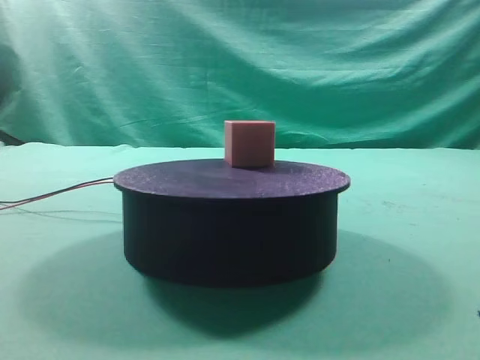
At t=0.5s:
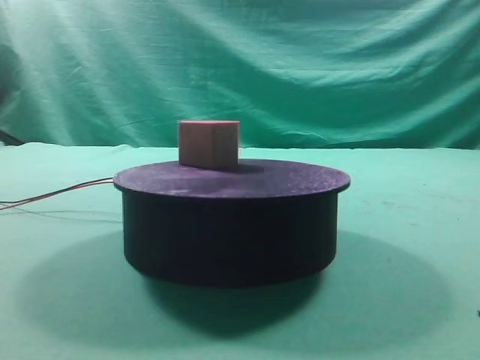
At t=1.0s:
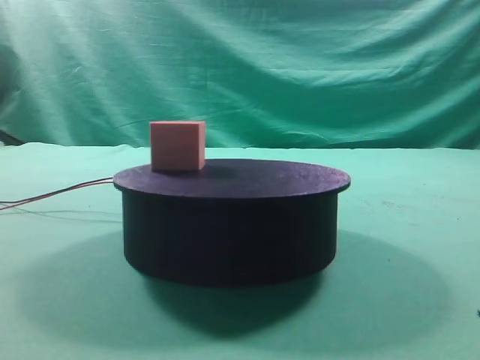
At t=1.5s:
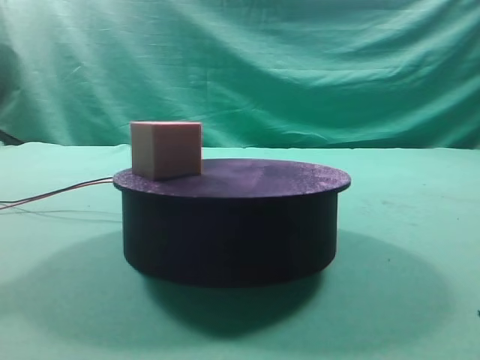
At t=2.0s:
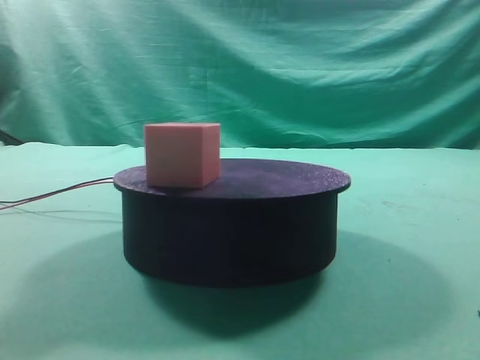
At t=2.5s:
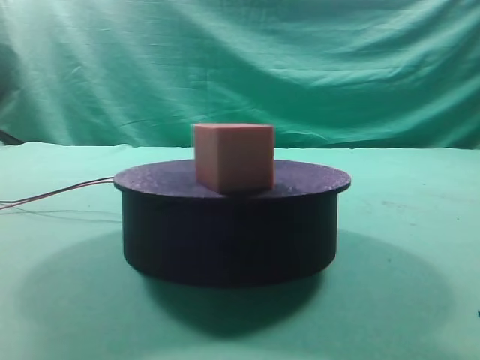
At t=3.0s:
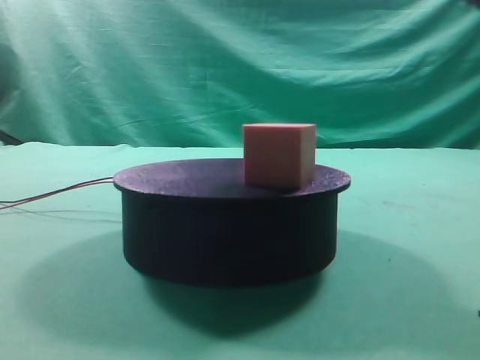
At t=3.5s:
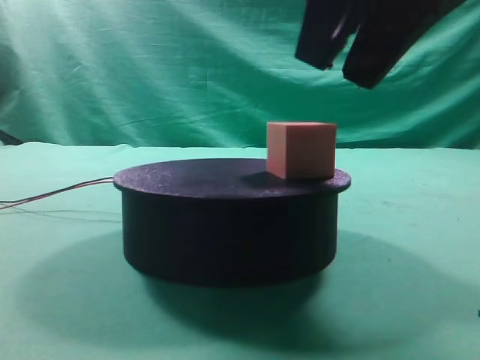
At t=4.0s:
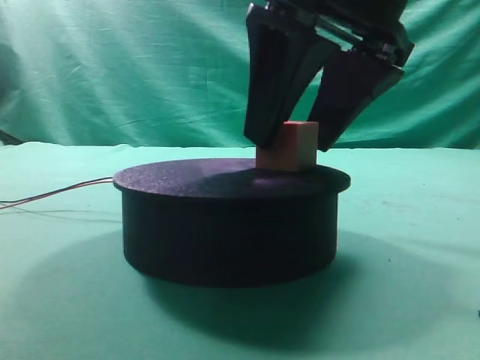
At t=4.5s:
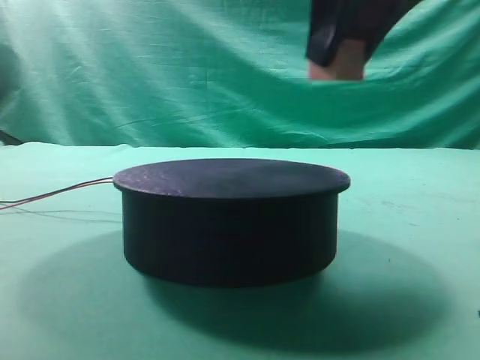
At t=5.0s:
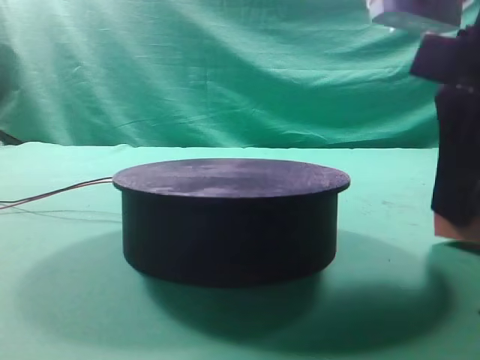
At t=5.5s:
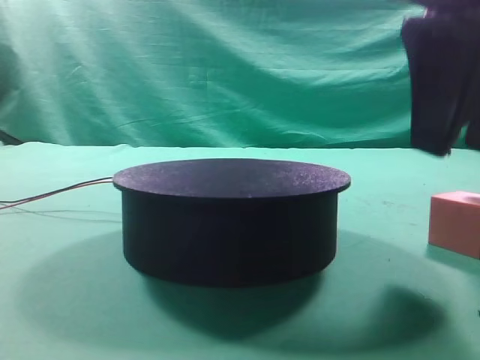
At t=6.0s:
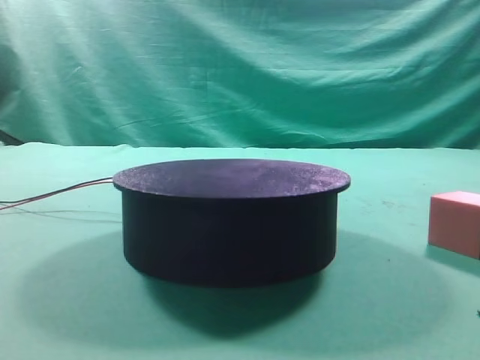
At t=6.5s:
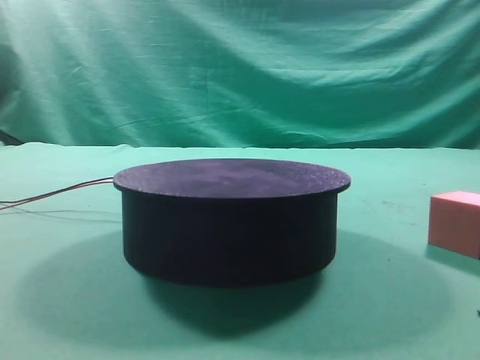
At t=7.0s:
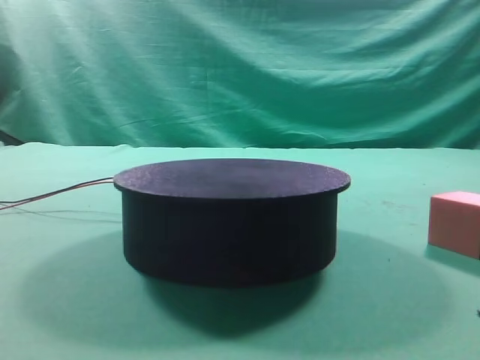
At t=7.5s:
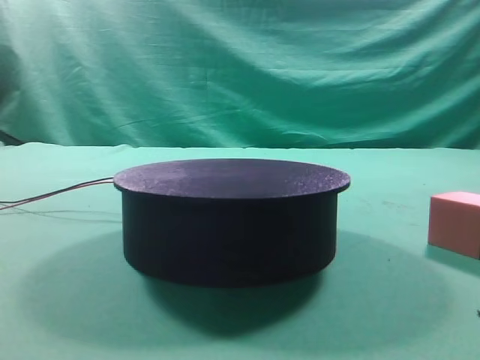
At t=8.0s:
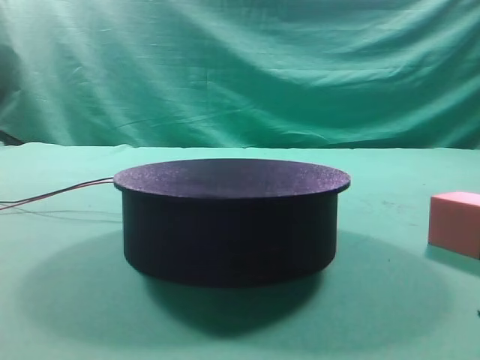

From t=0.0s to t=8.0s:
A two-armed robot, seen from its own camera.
Task of the whole recording: grasp the rotating cube-shaped block on the turntable and place it on the table.
Step, from t=0.0s to t=4.0s: Grasp the rotating cube-shaped block on the turntable.
Step, from t=4.5s to t=5.5s: Place the cube on the desk.

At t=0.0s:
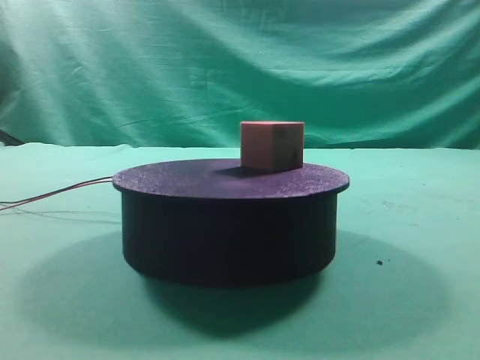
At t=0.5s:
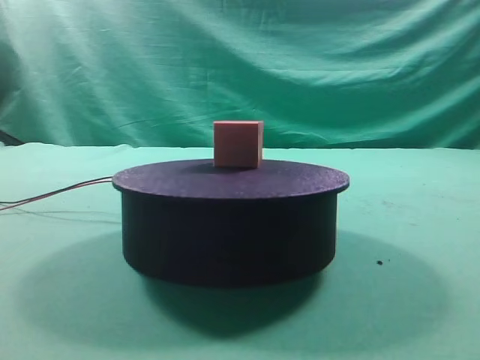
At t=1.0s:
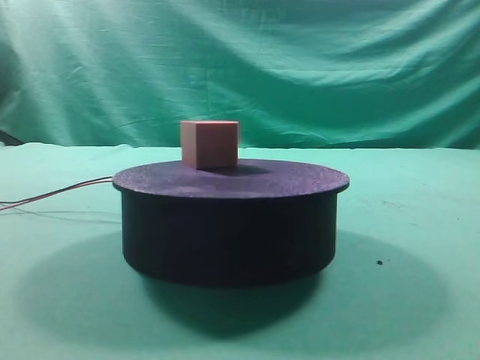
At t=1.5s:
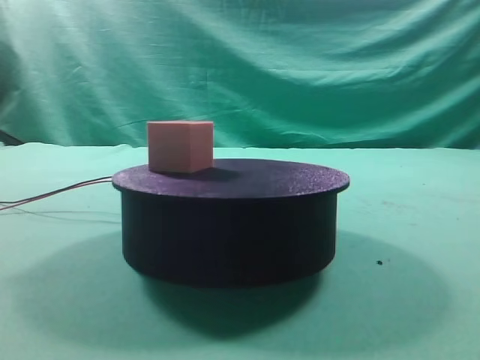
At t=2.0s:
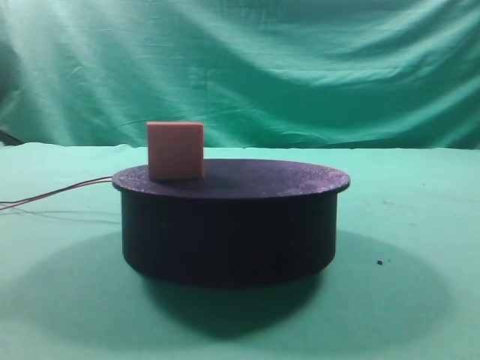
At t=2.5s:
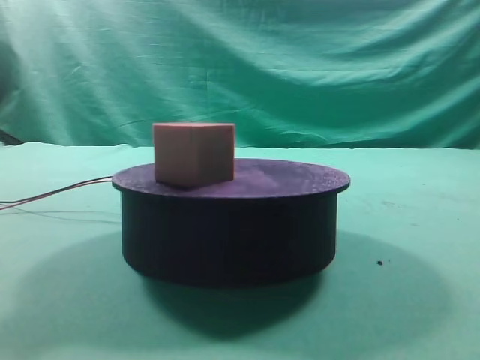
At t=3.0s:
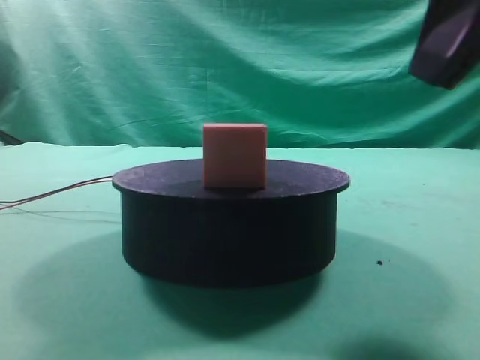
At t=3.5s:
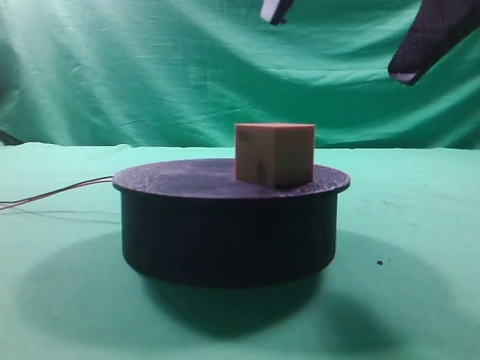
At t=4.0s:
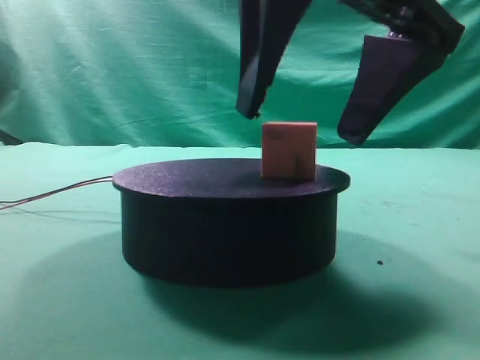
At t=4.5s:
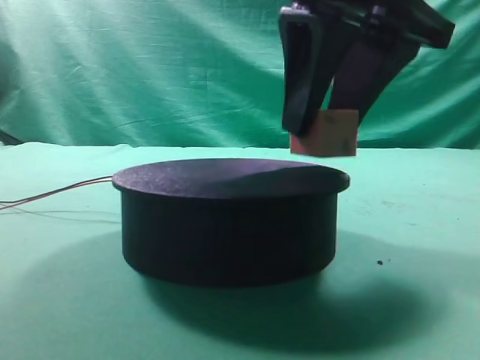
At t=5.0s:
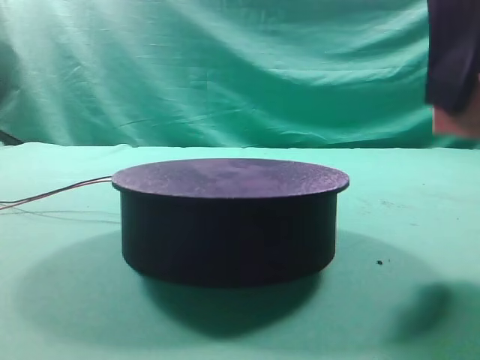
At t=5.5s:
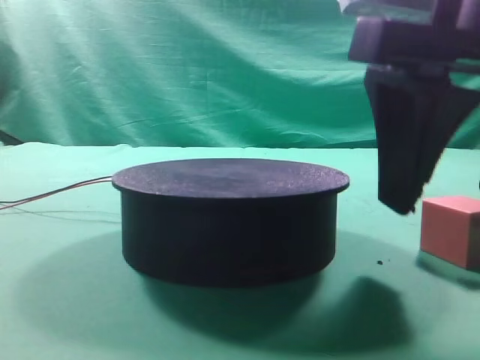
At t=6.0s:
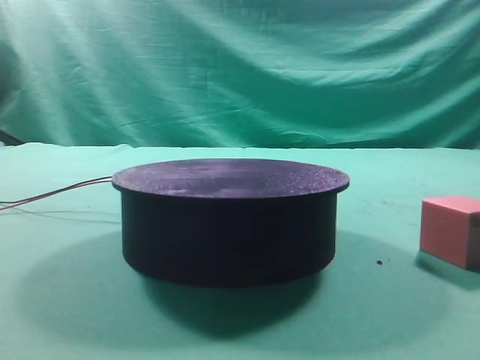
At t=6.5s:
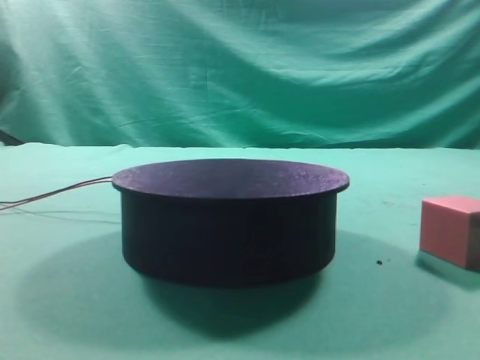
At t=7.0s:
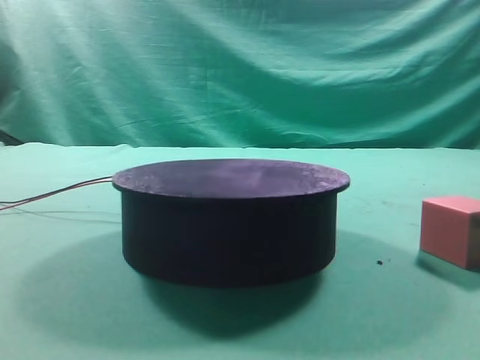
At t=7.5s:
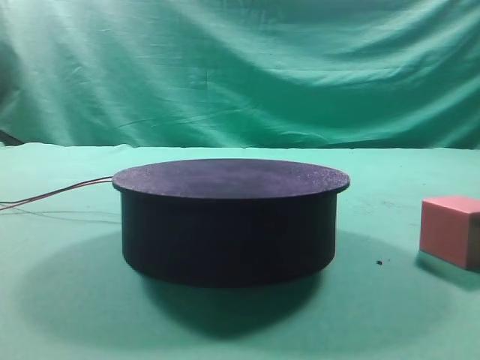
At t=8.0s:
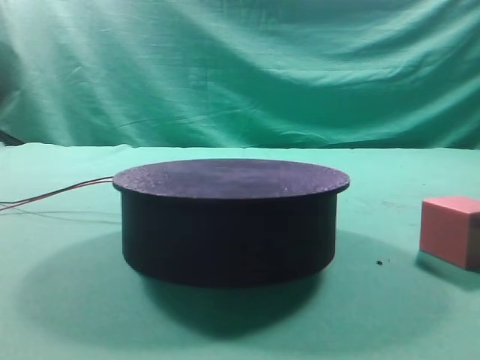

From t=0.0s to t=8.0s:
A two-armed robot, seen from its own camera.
Task of the whole recording: grasp the rotating cube-shaped block on the turntable and place it on the table.
Step, from t=0.0s to t=4.5s: Grasp the rotating cube-shaped block on the turntable.
Step, from t=5.0s to t=5.5s: Place the cube on the desk.
